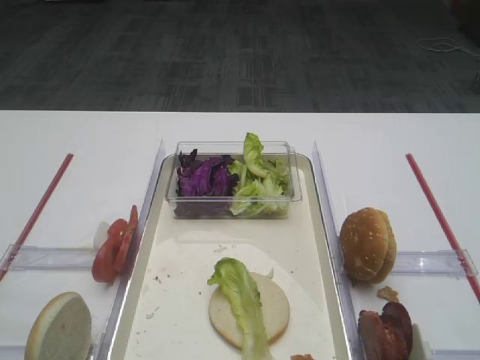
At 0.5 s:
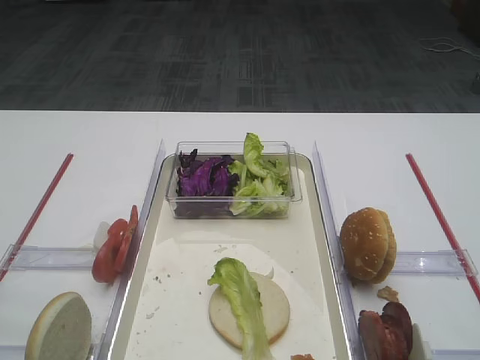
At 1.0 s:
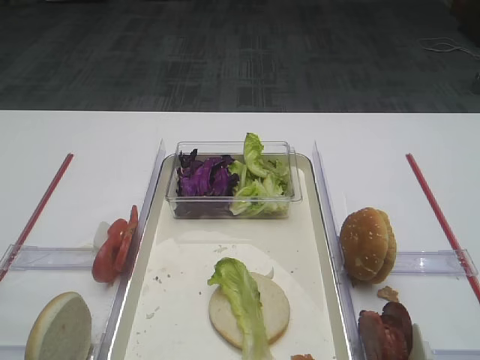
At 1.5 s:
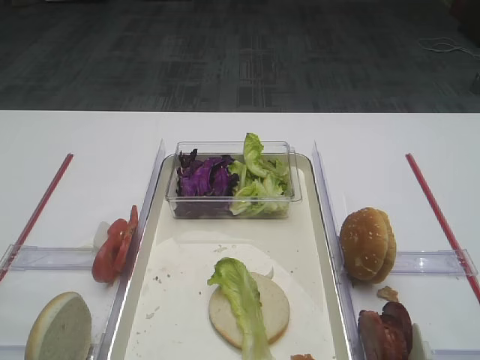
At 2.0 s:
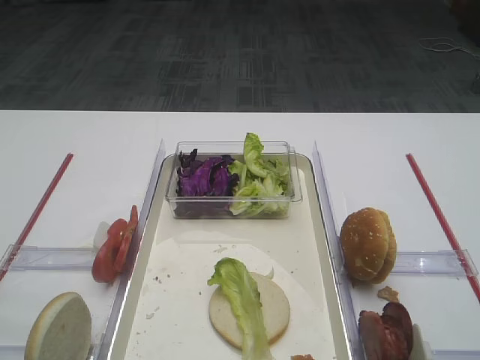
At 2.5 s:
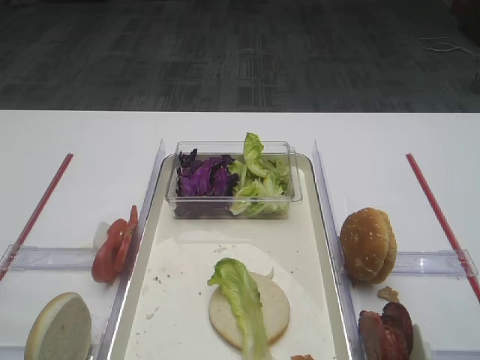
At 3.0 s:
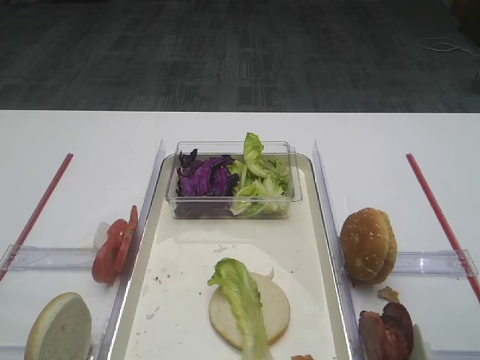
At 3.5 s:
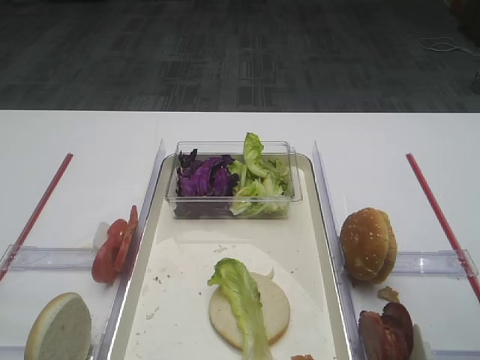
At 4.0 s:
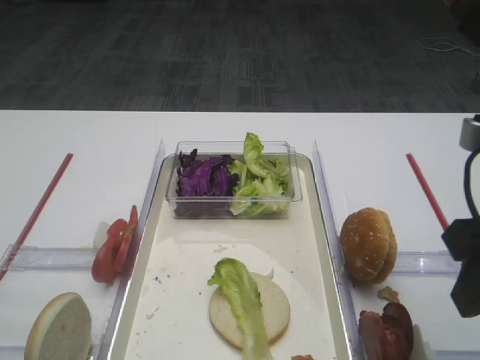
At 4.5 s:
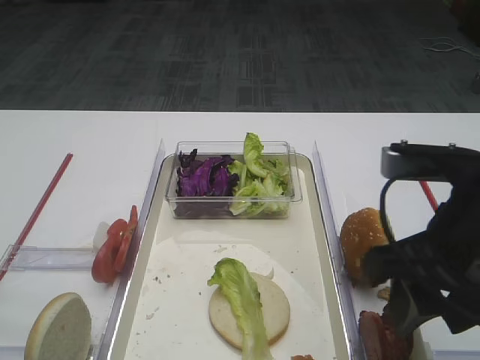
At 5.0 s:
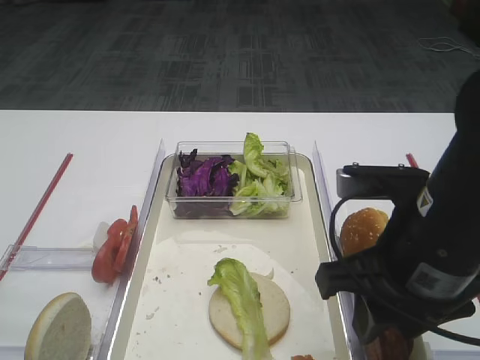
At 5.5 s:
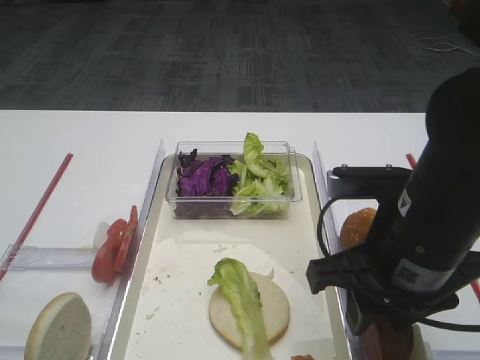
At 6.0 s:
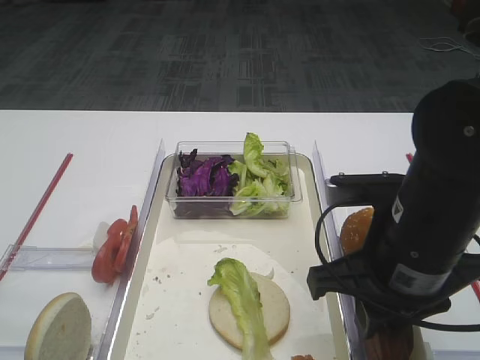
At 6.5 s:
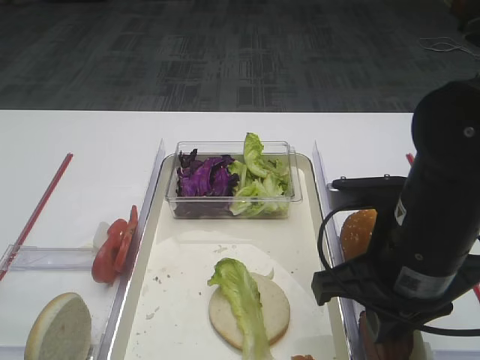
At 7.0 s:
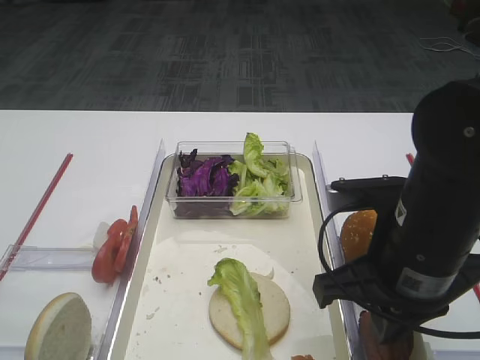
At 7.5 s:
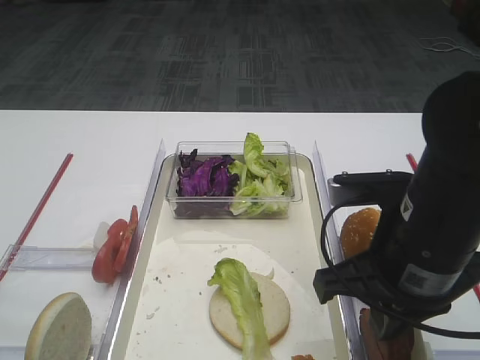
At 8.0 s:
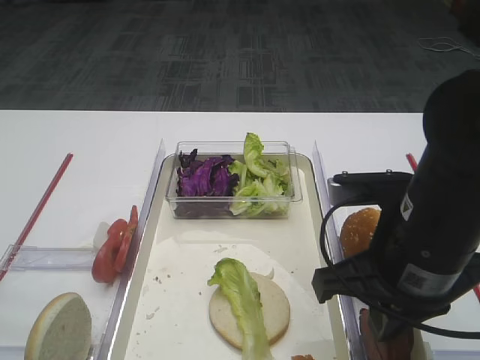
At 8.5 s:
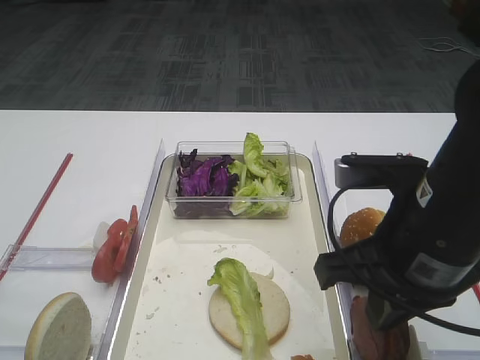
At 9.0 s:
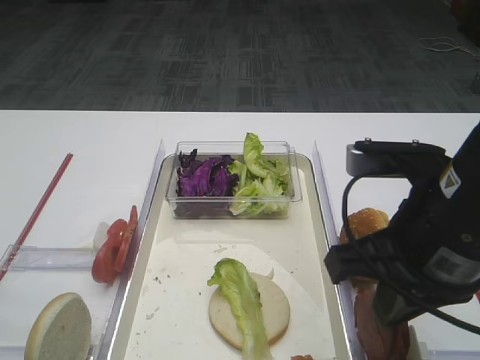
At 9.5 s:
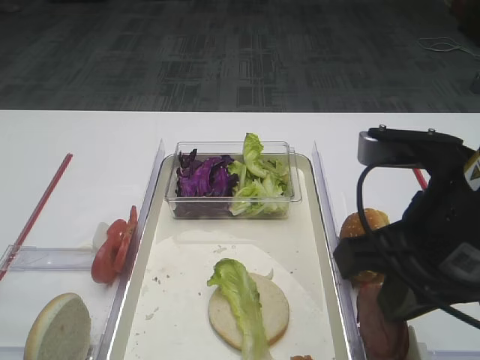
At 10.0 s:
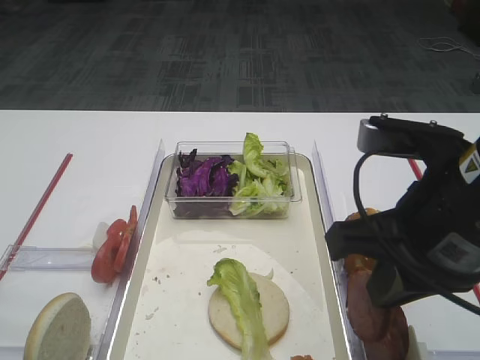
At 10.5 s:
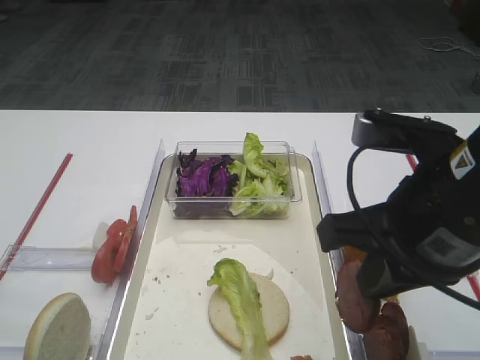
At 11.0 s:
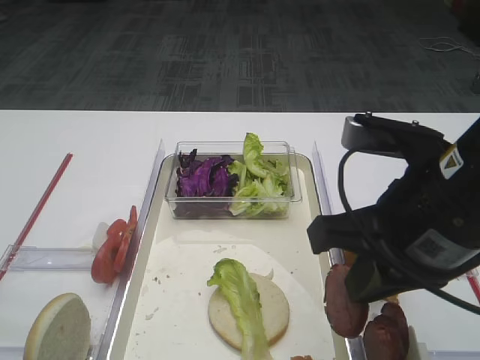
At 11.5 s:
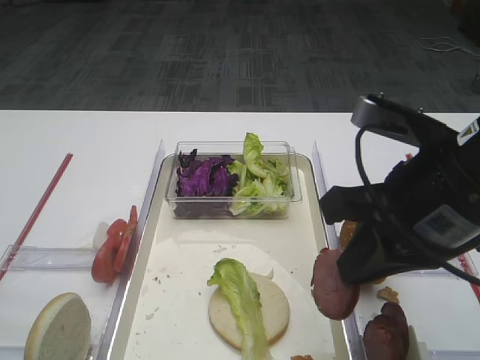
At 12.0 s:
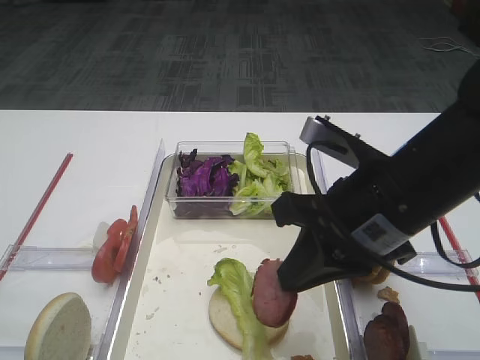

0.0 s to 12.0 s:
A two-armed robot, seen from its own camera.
Step, 0.0 to 9.5 s: Pick up the cutlet with the right gripper.
2.0 to 4.0 s: The right gripper shifts roughly 10 cm forward.
4.0 to 6.0 s: The right gripper shifts approximately 10 cm to the left and downward, and closes.
6.0 to 8.0 s: The right gripper closes its fingers.
8.0 to 10.0 s: The right gripper is displaced upward by about 5 cm.
10.0 to 12.0 s: The right gripper ends up approximately 5 cm from where it was.

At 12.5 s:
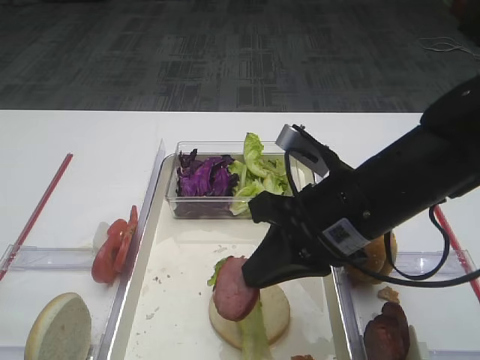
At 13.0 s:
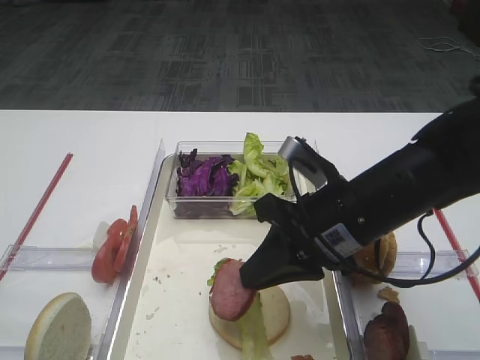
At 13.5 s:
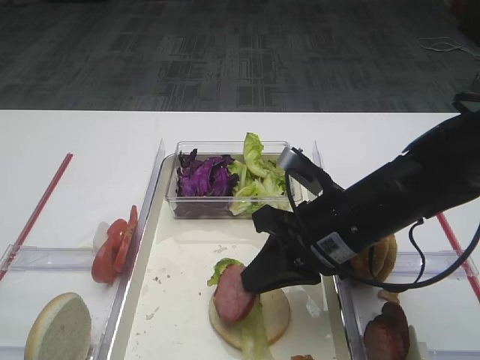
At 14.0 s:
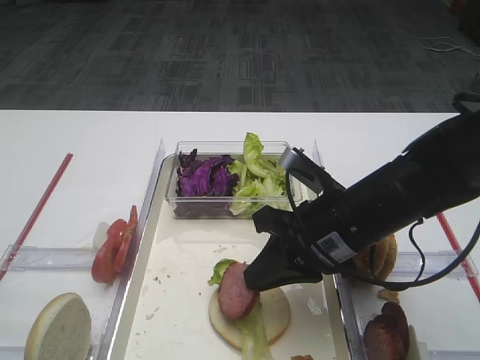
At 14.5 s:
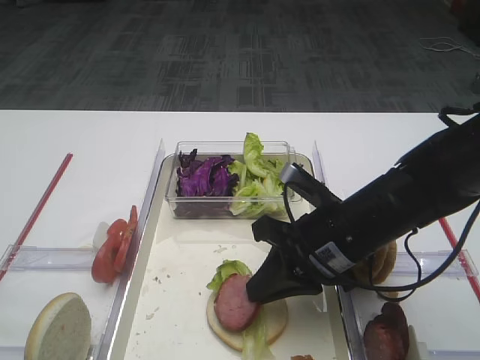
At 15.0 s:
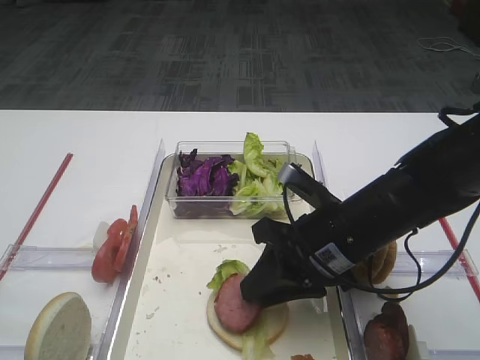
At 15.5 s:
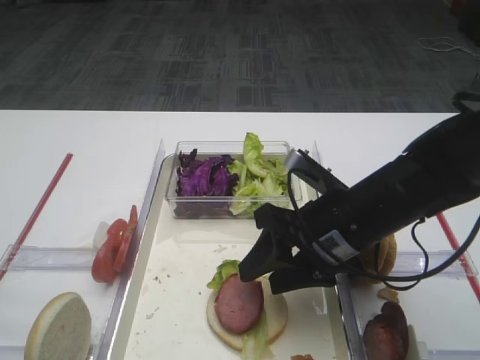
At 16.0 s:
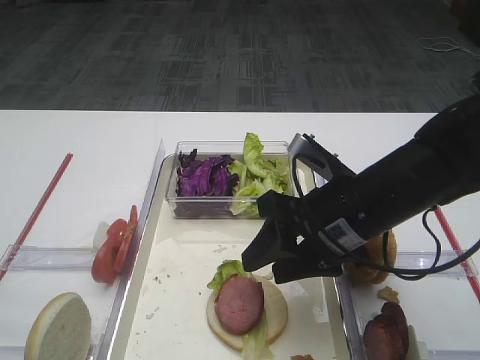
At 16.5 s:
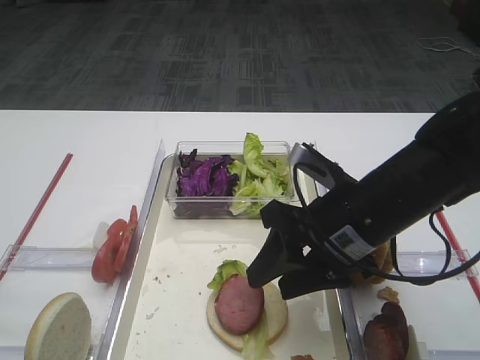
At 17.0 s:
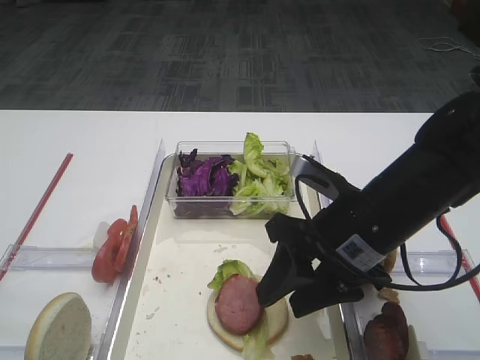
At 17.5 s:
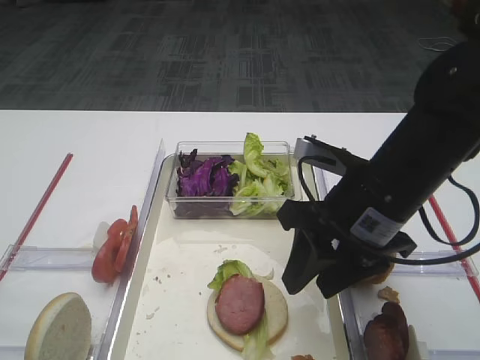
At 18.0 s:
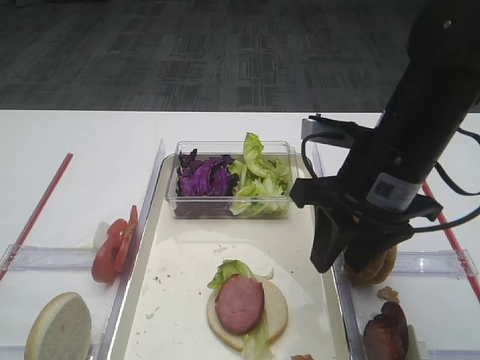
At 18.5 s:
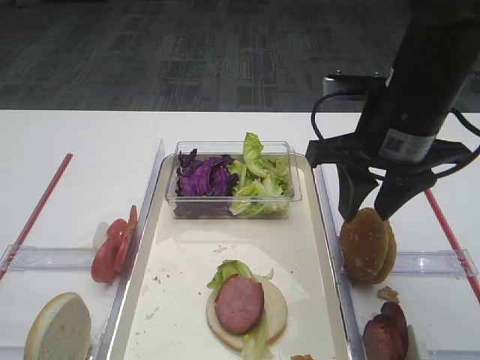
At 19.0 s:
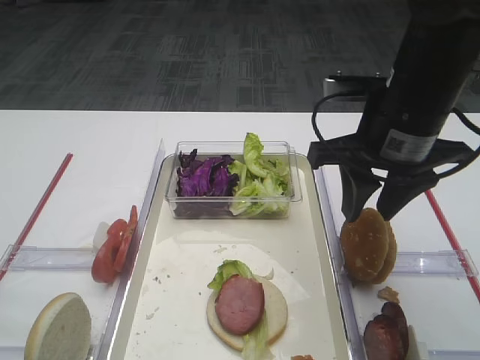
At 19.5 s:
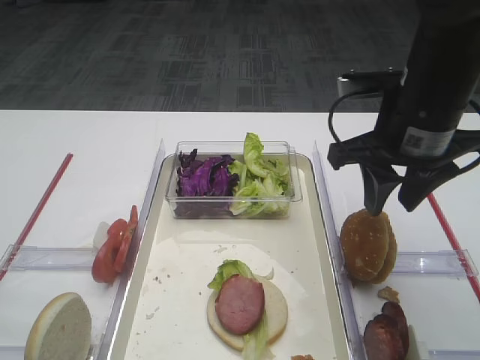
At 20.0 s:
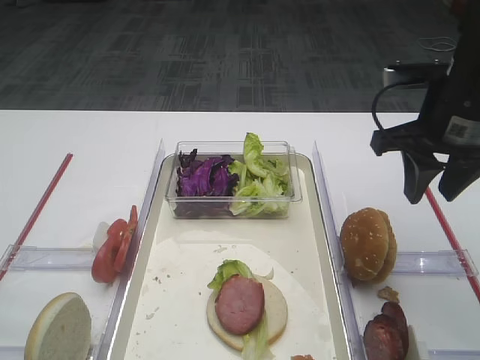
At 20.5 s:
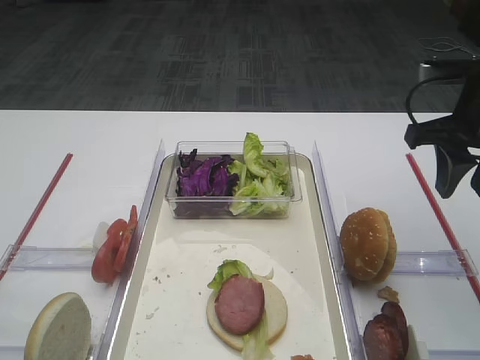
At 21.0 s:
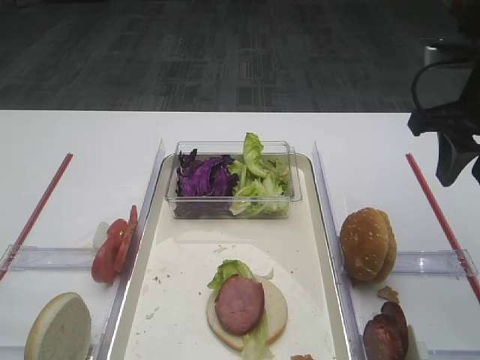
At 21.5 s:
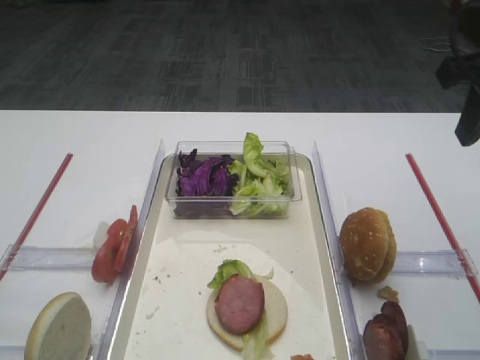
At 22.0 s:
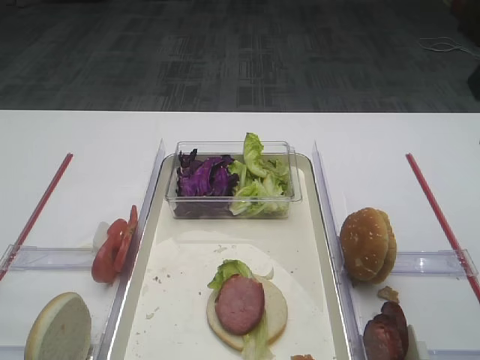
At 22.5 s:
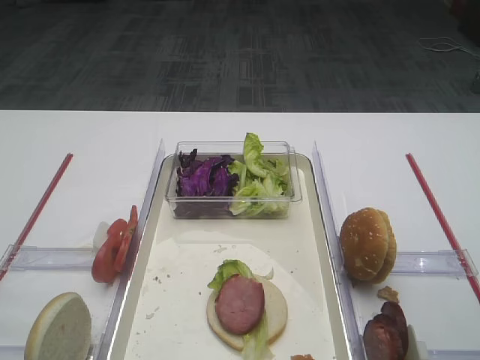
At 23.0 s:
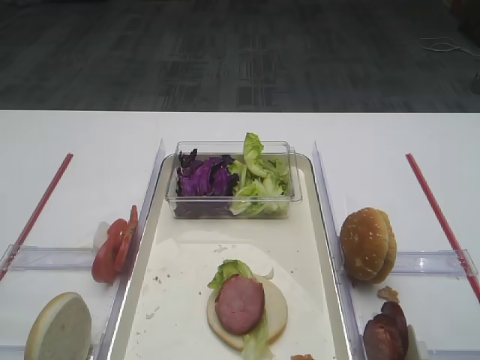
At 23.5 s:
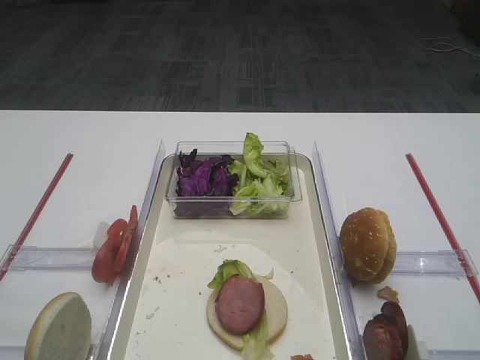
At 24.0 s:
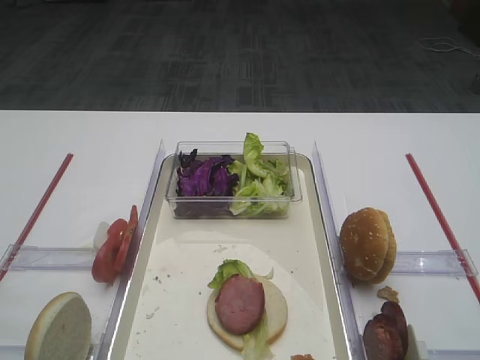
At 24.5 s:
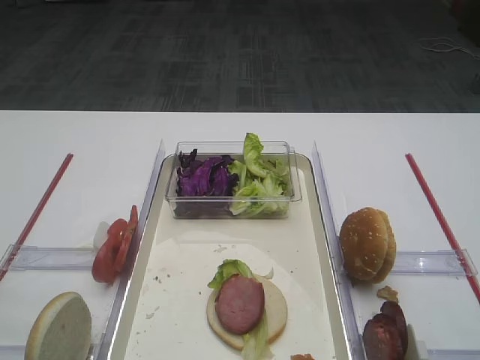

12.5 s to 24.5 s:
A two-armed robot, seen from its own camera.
Step, 12.5 to 15.5 s: Place the cutlet on the lettuce leaf with the right gripper.
12.5 to 14.5 s: The right gripper travels downward by some 5 cm.
14.5 to 16.5 s: The right gripper opens.
16.5 to 18.5 s: The right gripper goes approximately 10 cm upward.
18.5 to 20.5 s: The right gripper is displaced to the right by approximately 10 cm.
20.5 to 22.5 s: The right gripper shifts about 15 cm backward.

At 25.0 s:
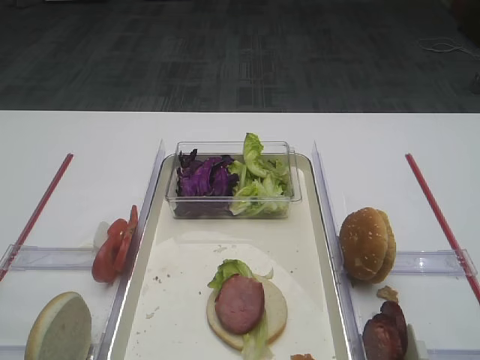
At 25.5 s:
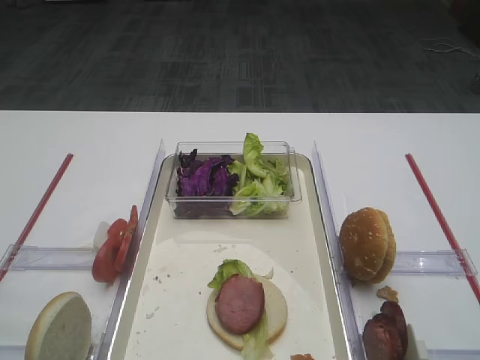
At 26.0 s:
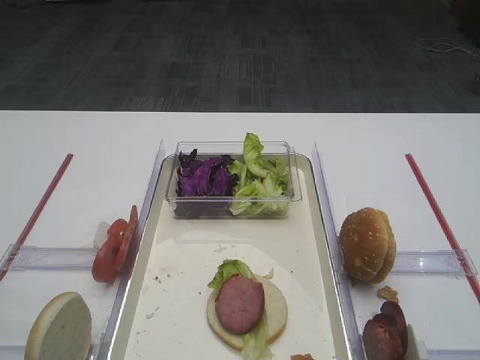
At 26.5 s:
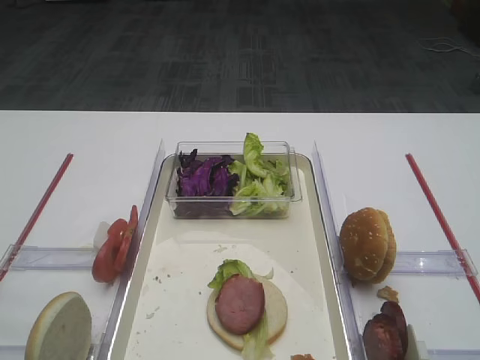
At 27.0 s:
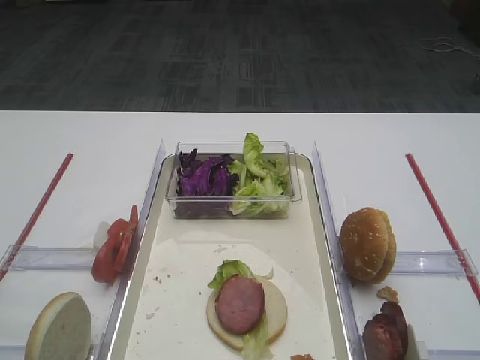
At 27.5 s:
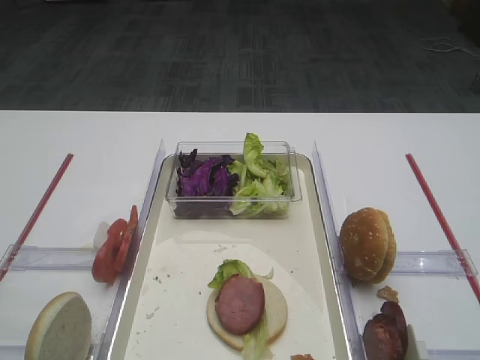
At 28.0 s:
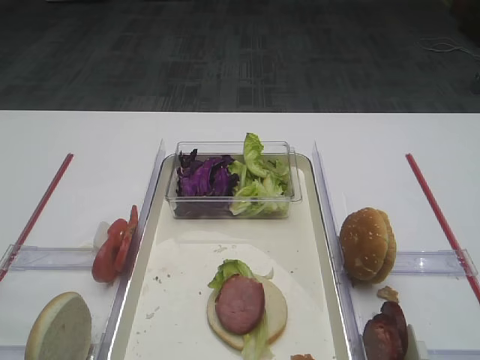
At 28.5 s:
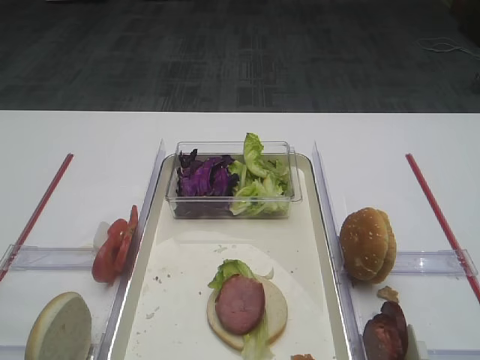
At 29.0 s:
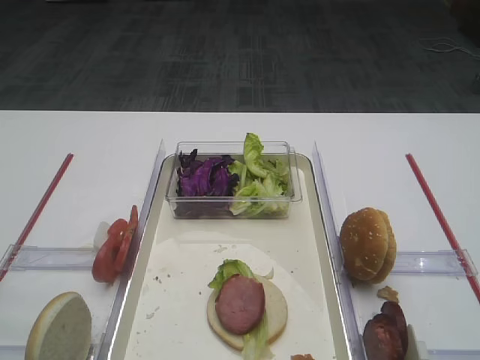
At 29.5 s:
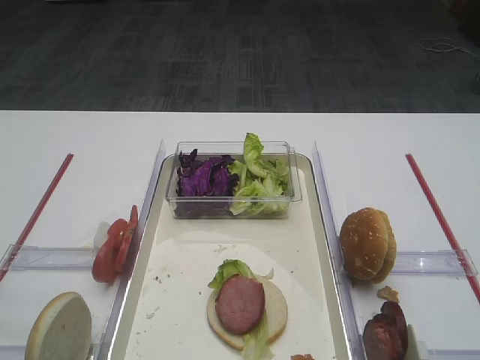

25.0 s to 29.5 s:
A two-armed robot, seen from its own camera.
27.0 to 29.5 s: Neither gripper changes place.
